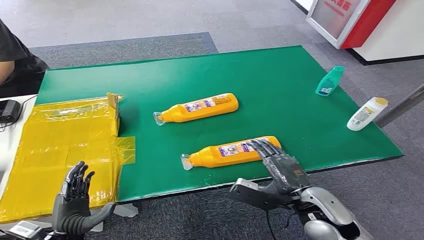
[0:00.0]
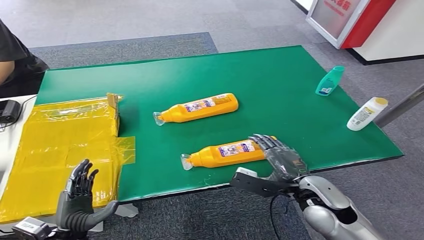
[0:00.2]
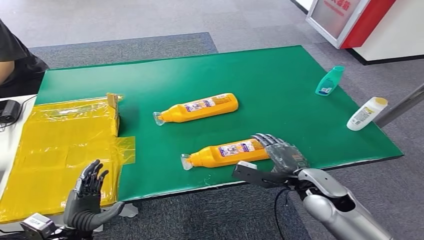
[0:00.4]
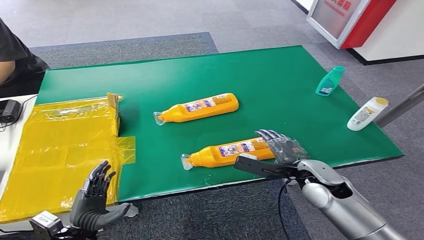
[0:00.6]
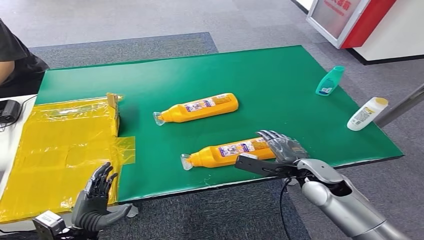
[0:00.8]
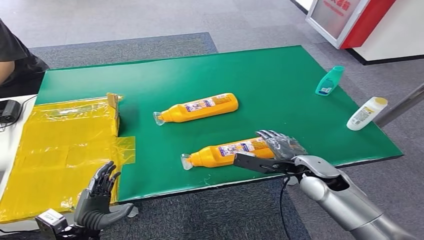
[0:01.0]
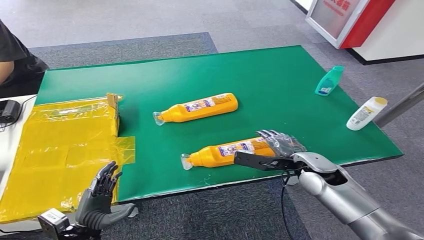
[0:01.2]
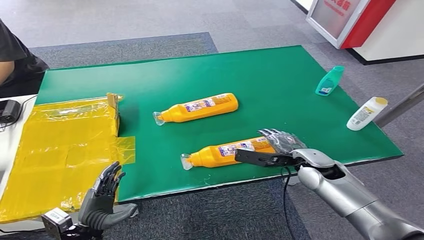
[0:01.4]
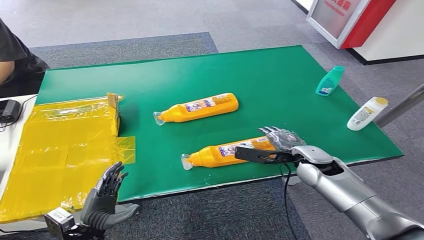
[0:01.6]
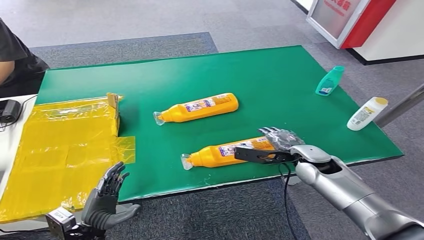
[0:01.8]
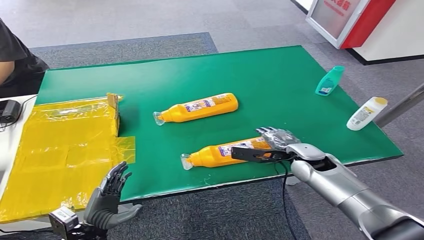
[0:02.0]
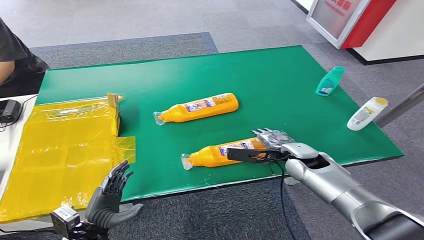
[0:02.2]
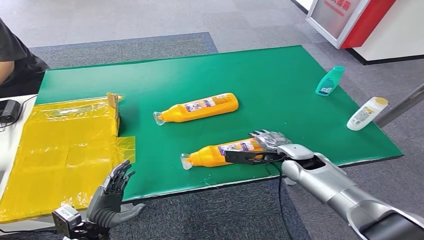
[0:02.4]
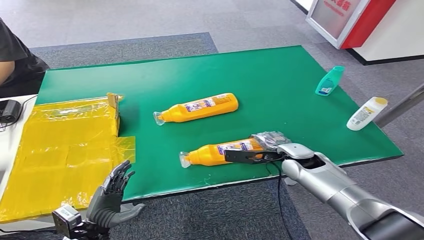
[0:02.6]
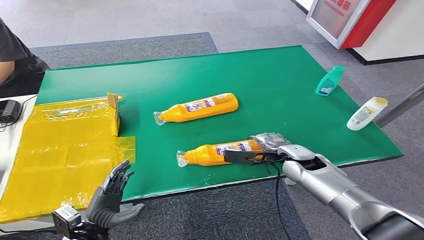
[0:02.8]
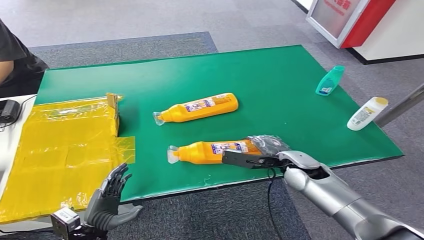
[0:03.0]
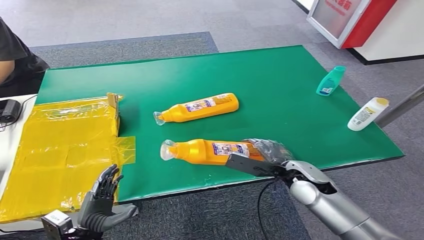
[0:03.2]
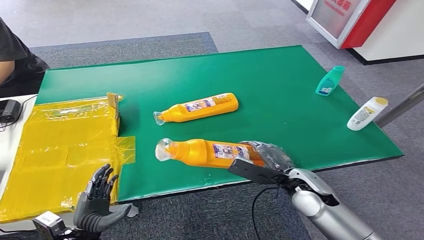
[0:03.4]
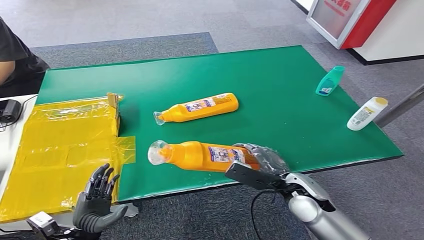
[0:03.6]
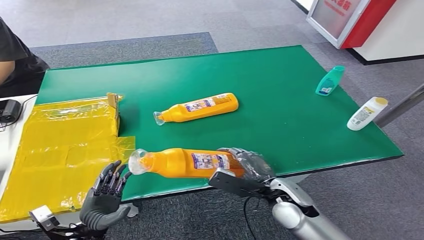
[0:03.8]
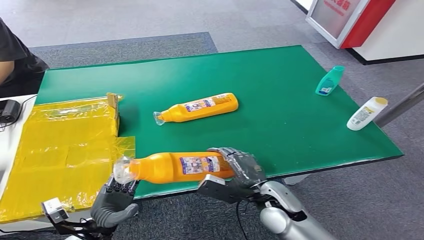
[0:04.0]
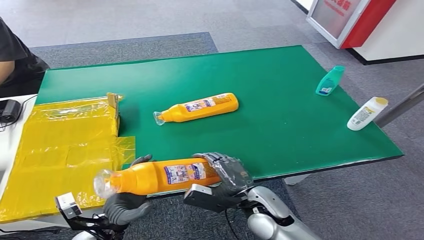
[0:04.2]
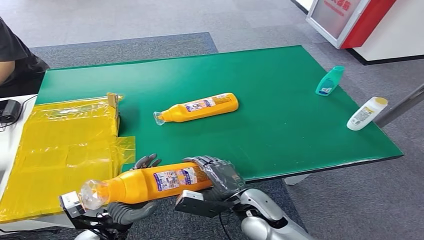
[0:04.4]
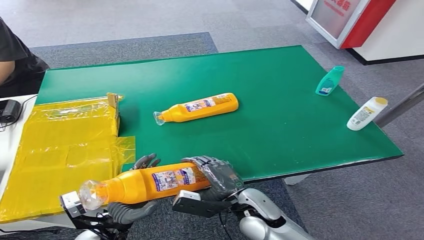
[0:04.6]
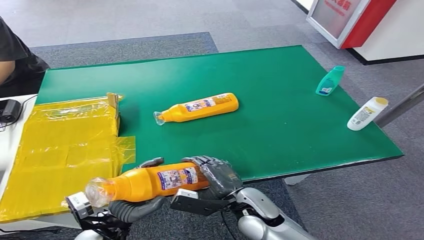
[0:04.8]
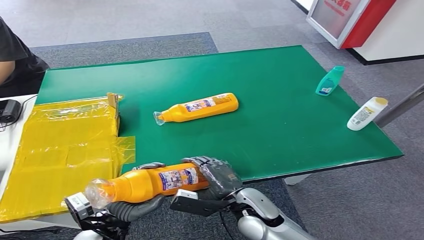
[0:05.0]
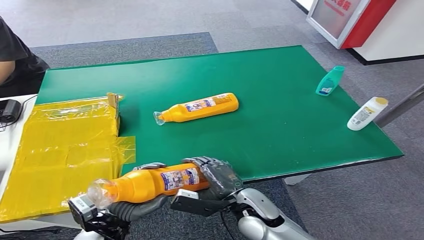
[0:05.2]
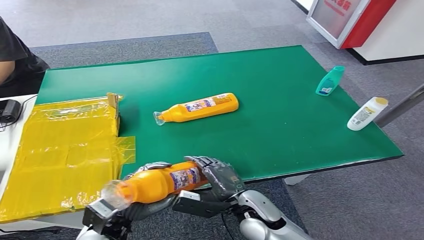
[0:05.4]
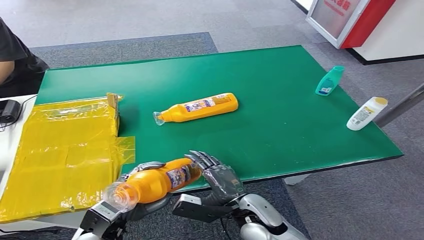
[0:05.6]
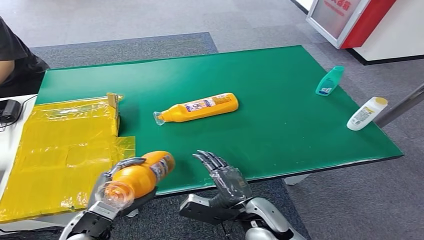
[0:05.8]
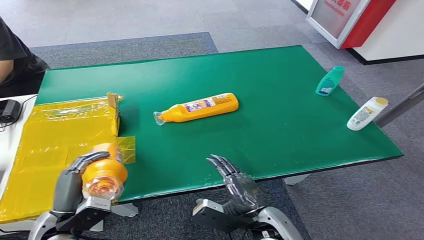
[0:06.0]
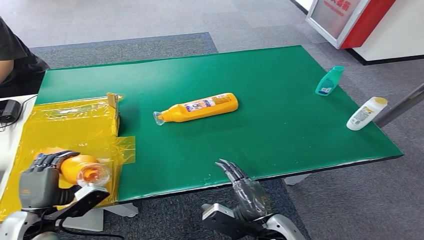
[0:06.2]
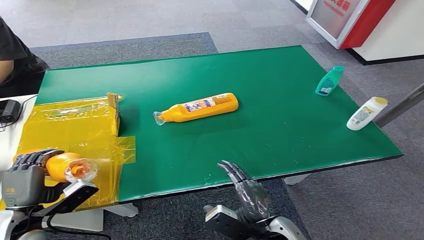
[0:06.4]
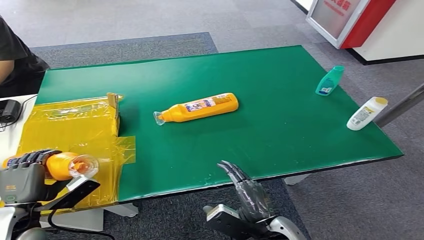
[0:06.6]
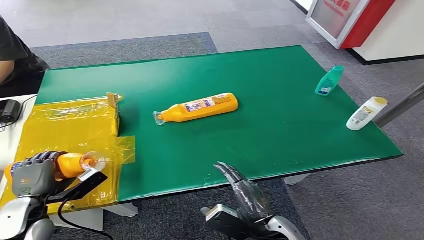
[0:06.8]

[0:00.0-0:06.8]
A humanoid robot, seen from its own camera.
Step, 0:00.0 to 0:03.6: Pick up the bottle from the table.
Step, 0:03.8 to 0:06.6: Turn the bottle to the front side.
0:01.4 to 0:02.8: The hands stay close to where they were, moving slightly.
0:02.8 to 0:04.0: The right hand moves backward and to the left, some 15 cm.
0:04.0 to 0:05.4: The right hand moves to the left, about 5 cm. Meanwhile the left hand moves roughly 5 cm.
0:05.4 to 0:06.8: The left hand heads to the left, covering approximately 15 cm. Meanwhile the right hand goes approximately 5 cm backward.
